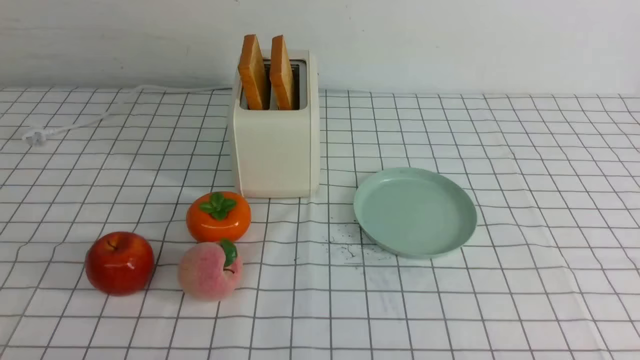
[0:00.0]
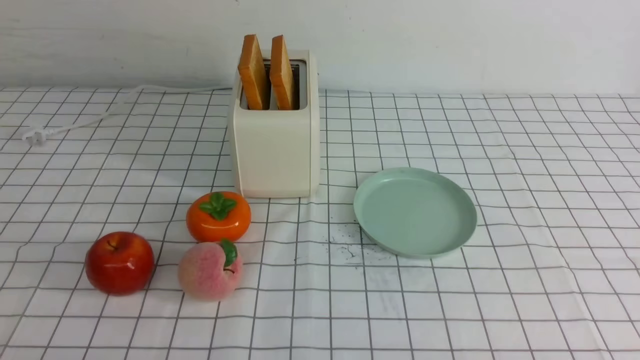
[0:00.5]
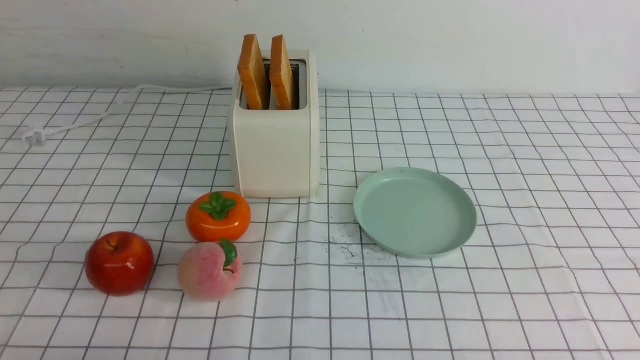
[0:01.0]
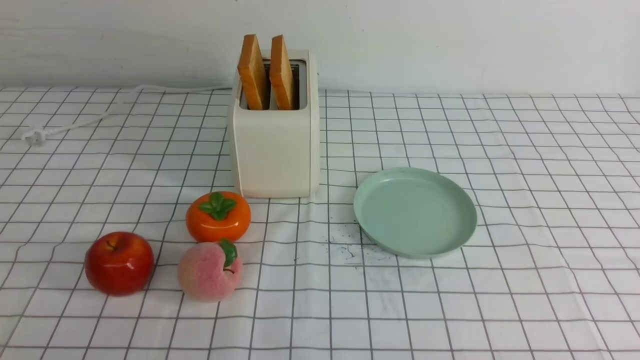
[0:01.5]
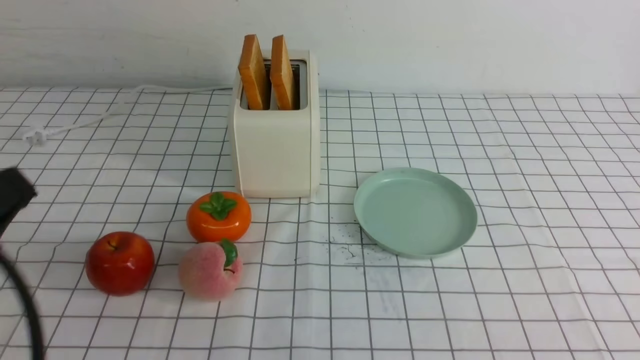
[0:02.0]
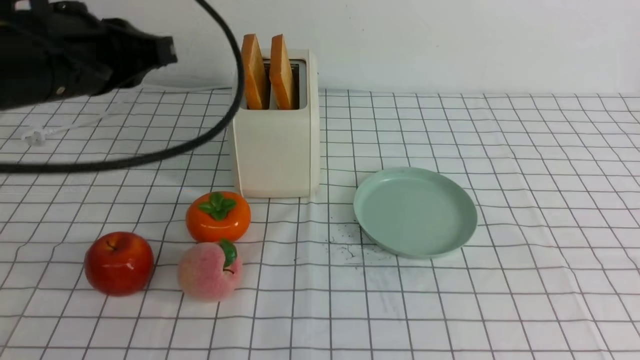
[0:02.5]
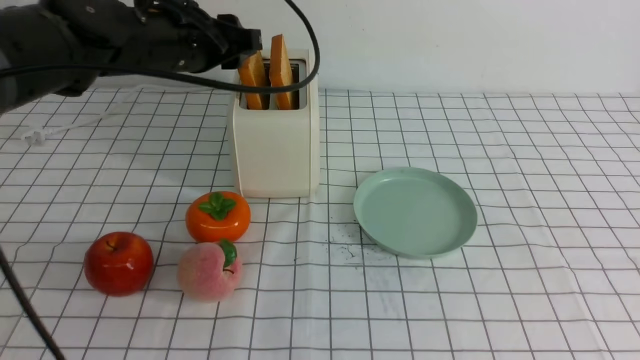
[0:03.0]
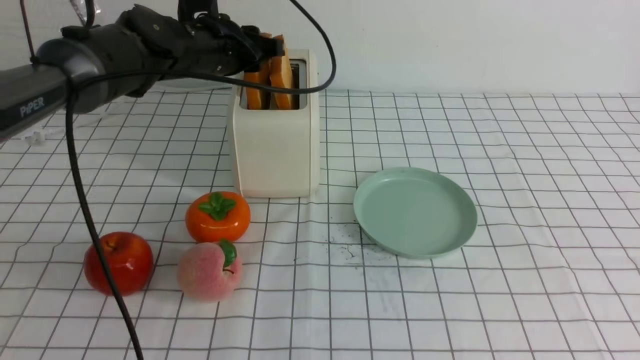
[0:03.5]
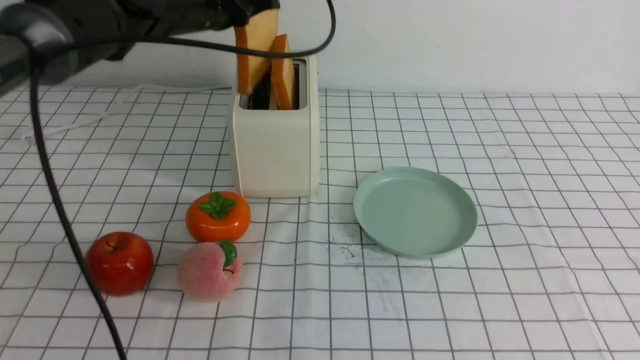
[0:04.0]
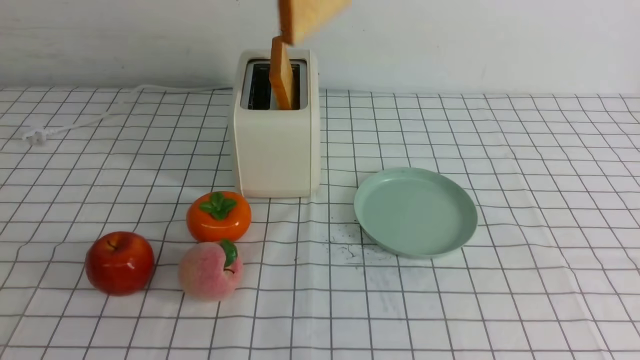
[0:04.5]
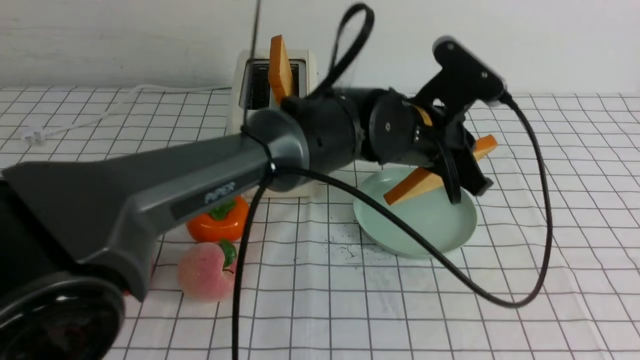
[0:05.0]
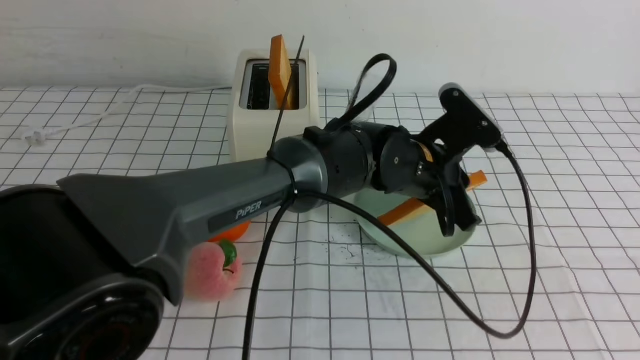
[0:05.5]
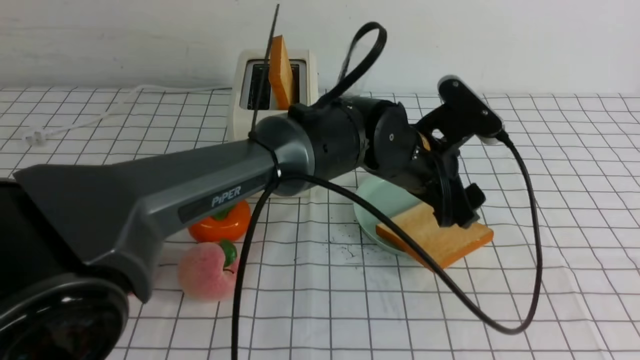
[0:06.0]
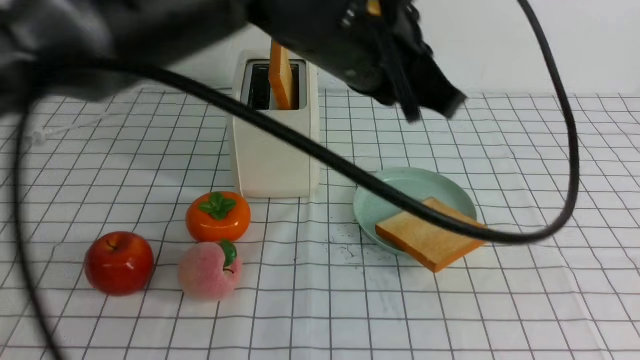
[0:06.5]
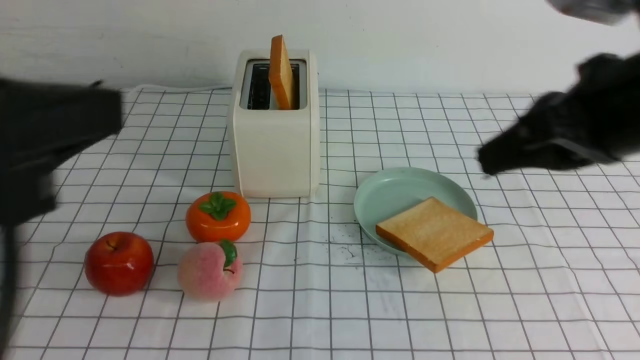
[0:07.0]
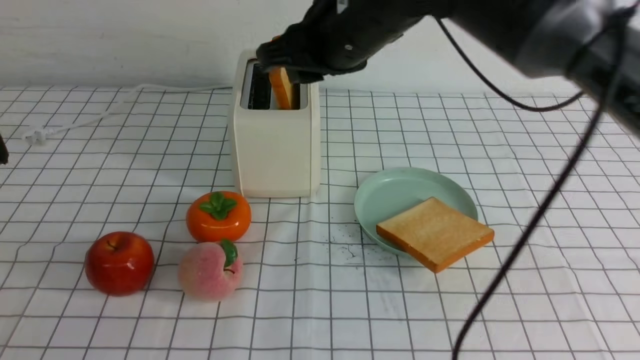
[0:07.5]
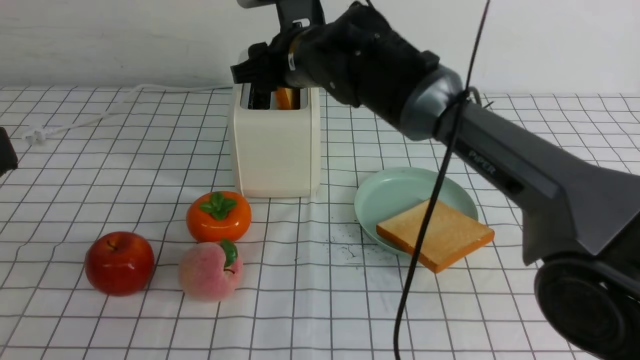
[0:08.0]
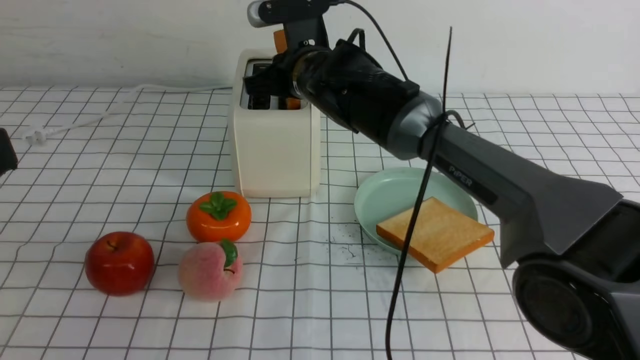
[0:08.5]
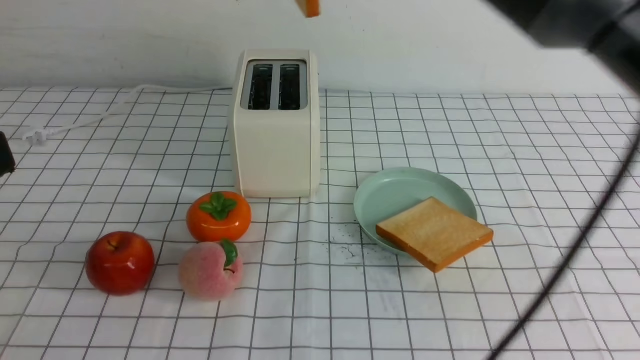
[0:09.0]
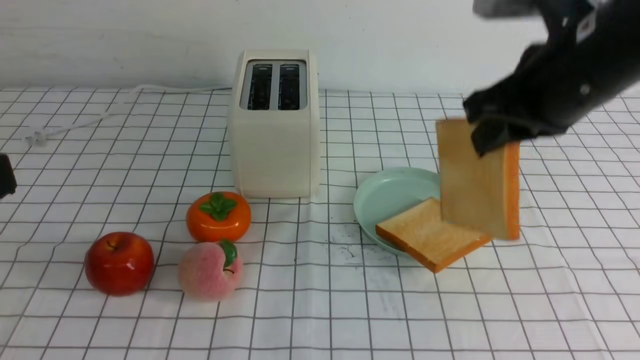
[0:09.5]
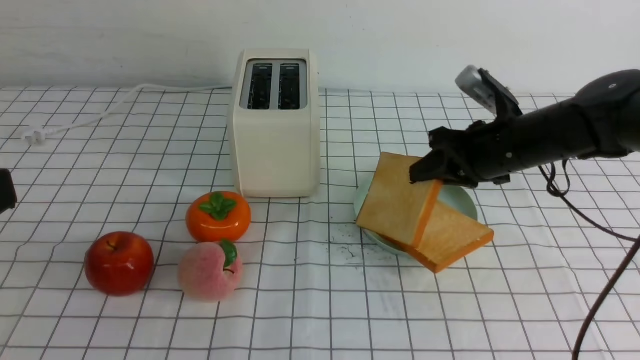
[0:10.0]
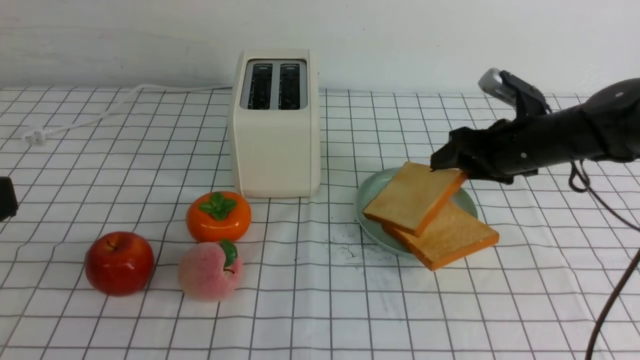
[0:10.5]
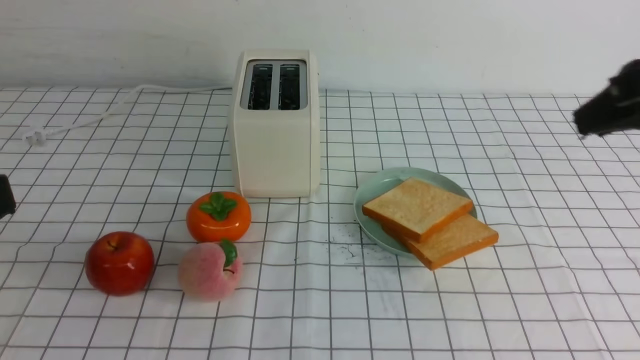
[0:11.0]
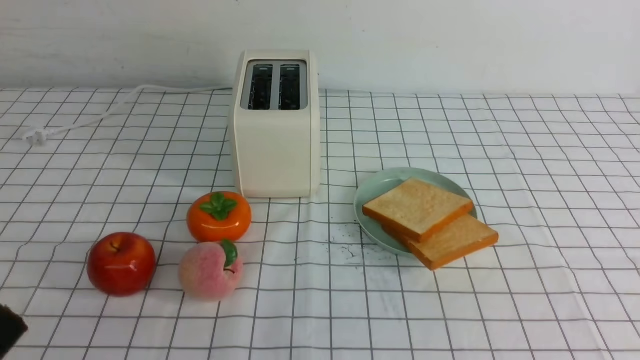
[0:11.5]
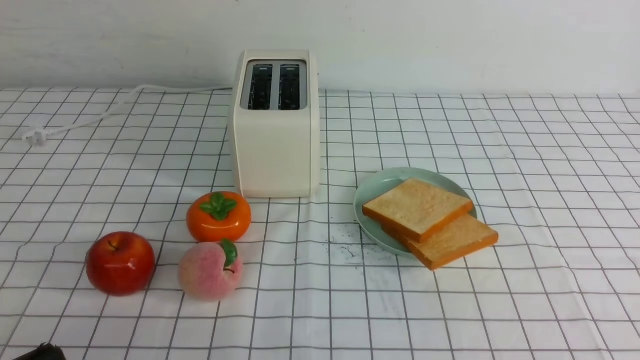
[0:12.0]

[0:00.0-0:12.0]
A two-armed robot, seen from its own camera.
Task of the whole recording: take toasted bread from bread machine on white checkered table place on plate.
Step, 0.0 to 3.5 s: use the left arm to take out a slice of bread.
Step, 4.0 to 6.0 s: use the left arm to put a slice of bread into the empty plate.
Step, 6.5 to 8.5 s: use the right arm to take out a slice of bread.
Step, 9.0 to 10.5 s: use the right arm to put a slice of bread into the plate.
0.0 to 2.0 s: The left gripper goes some 20 cm upward and forward, and closes.
2.0 to 4.0 s: The left gripper moves forward, approximately 35 cm, and opens, then closes once more, while the right gripper heads upward, covering some 15 cm.
4.0 to 6.0 s: The left gripper shifts about 25 cm to the right and downward, and opens up, while the right gripper shifts about 10 cm backward.
6.0 to 8.0 s: The left gripper moves to the left, backward and upward, approximately 40 cm, and closes its fingers. Meanwhile the right gripper travels forward and to the left by roughly 50 cm, and opens its fingers.
8.0 to 10.0 s: The right gripper is displaced to the right by some 20 cm, goes upward and returns, approximately 15 cm each way, and closes.
10.0 to 12.0 s: The right gripper shifts some 35 cm backward, and opens, then closes once more; the left gripper moves downward, some 15 cm.

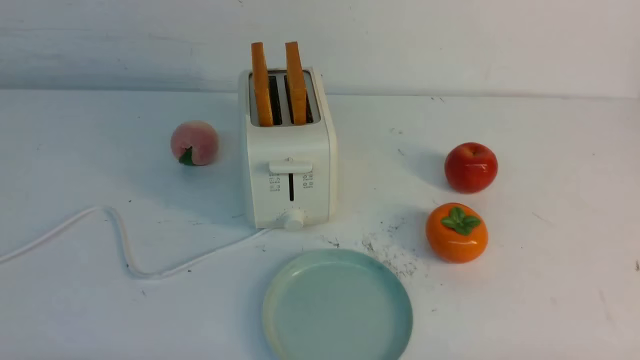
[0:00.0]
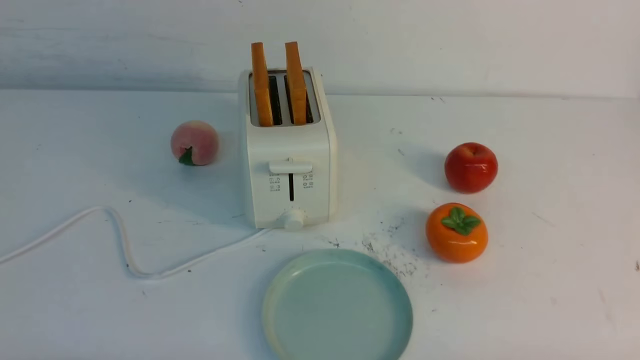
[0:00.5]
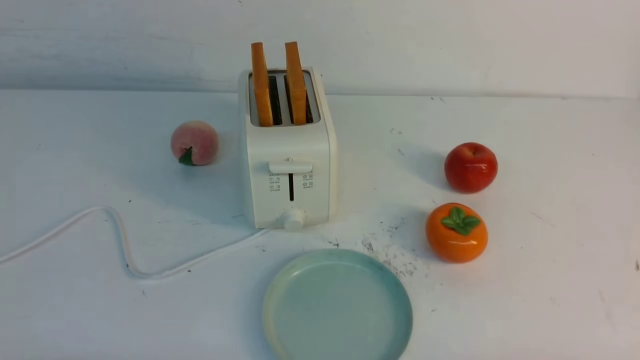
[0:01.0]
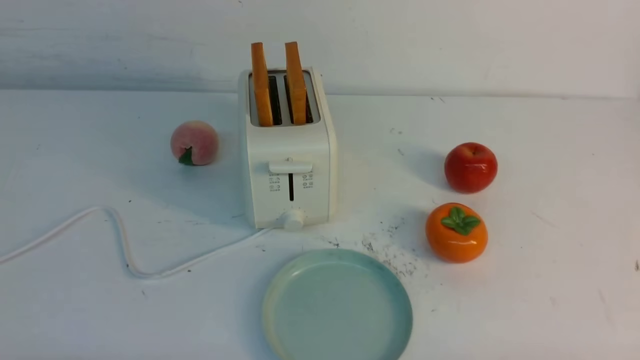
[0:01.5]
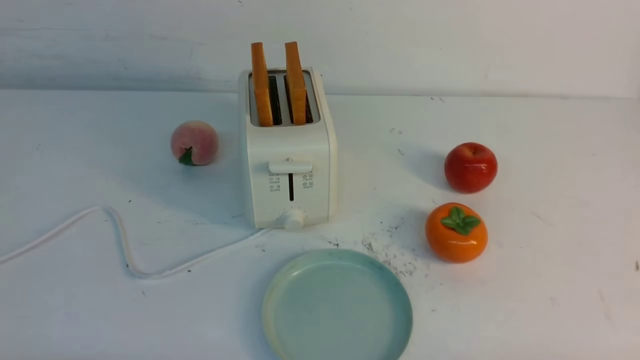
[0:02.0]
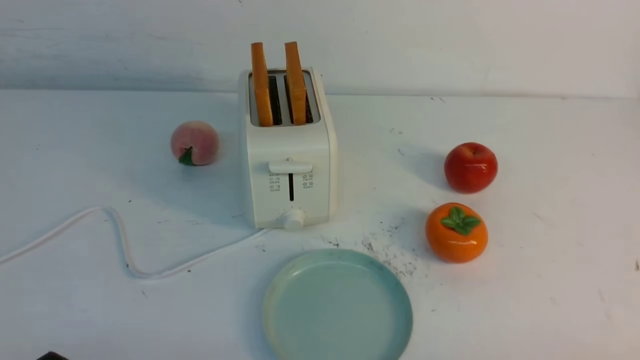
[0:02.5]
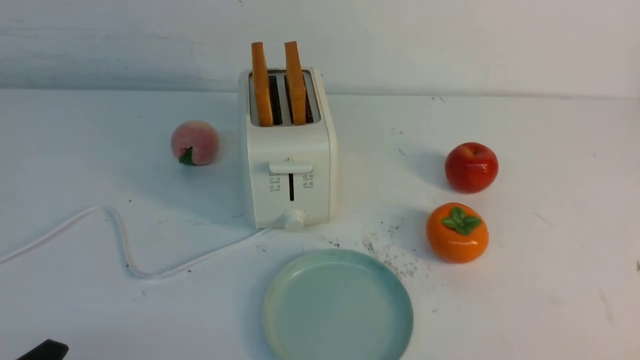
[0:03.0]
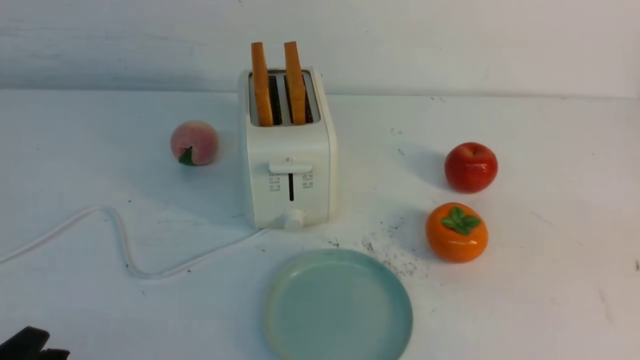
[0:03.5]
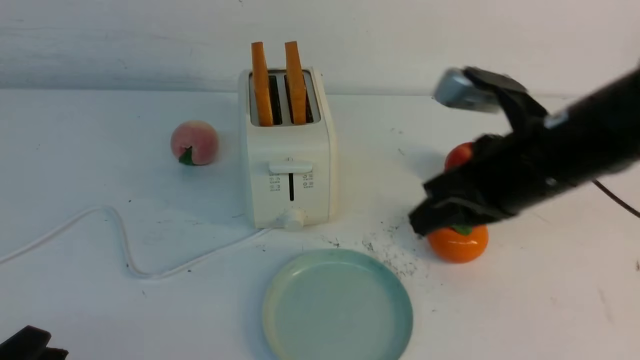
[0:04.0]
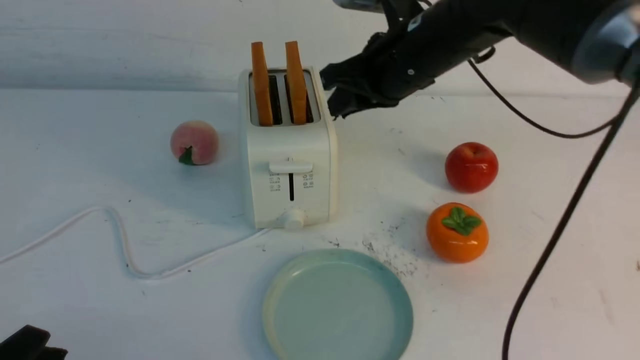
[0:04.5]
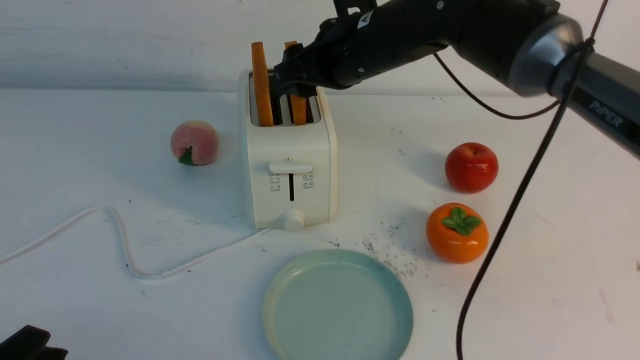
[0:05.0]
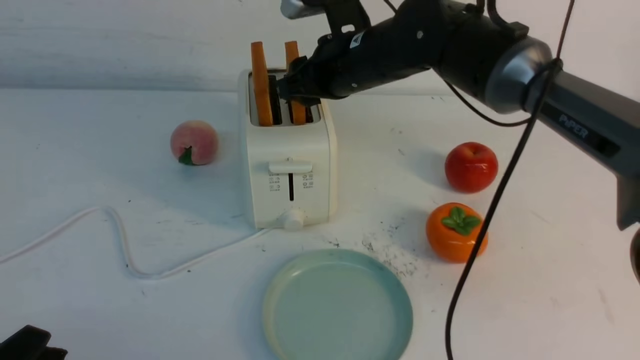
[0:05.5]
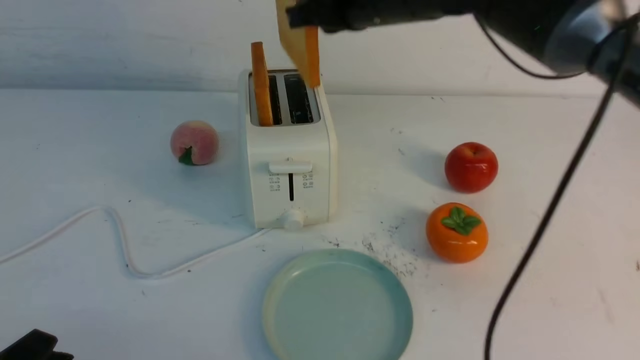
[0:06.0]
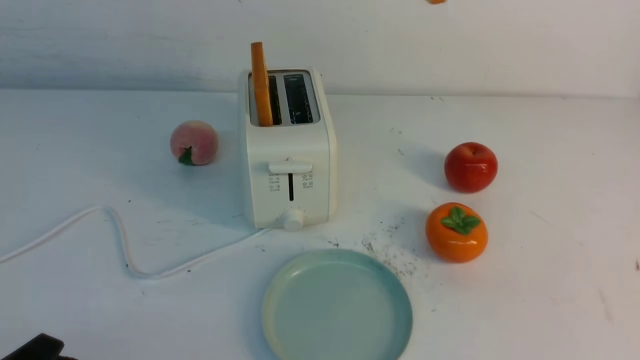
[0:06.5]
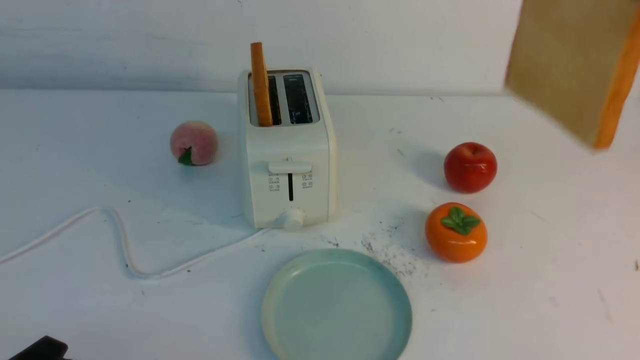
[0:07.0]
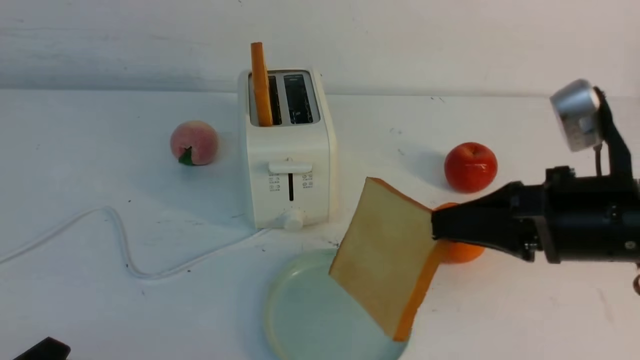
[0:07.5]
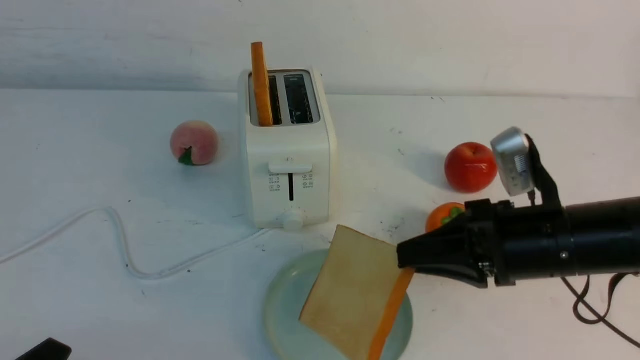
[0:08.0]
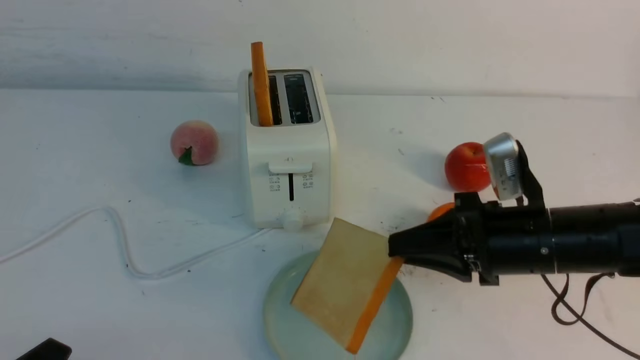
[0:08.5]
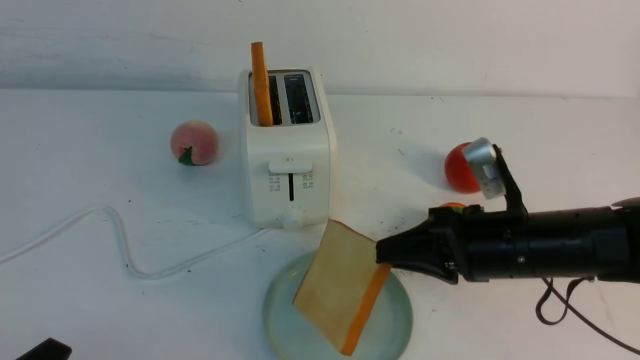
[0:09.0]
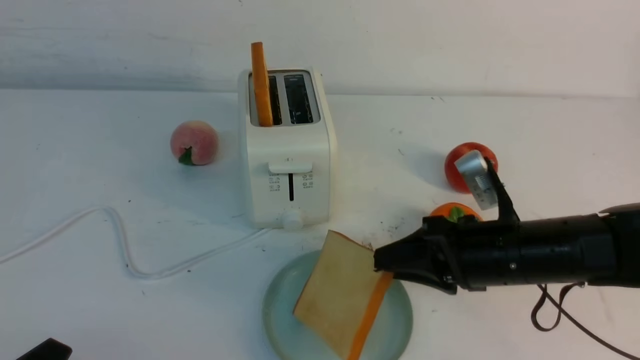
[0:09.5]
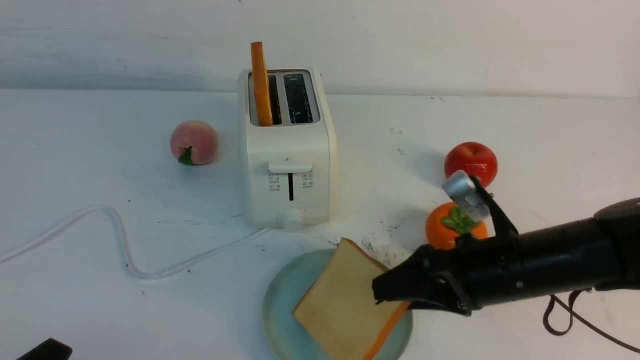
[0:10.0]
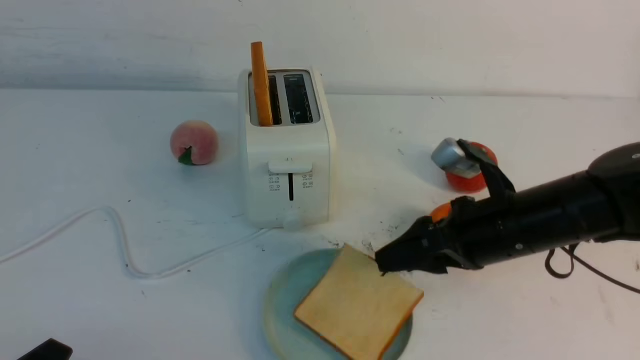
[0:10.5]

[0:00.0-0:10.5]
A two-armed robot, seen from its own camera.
Task of the whole recording: take toasted bread from bread machine on white table place on plate.
Step, 0.0 to 5.5 s: use the right arm to take out a slice of bread.
2.0 to 4.0 s: The right gripper heads forward, upward and to the left, covering approximately 30 cm, and closes up.
4.0 to 6.5 s: The right gripper moves upward, some 20 cm, and opens, then closes once more.
6.5 to 8.5 s: The right gripper shifts some 30 cm downward.
8.5 to 10.5 s: The right gripper opens up.
